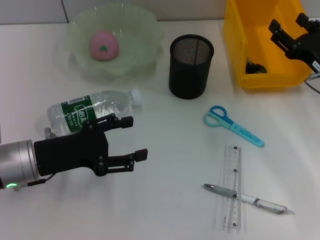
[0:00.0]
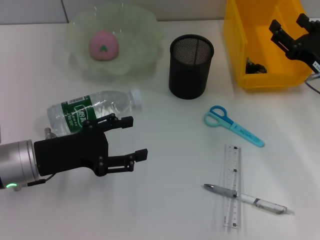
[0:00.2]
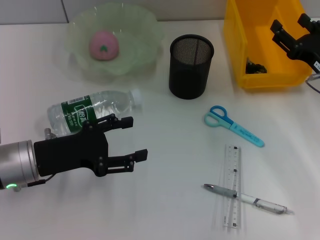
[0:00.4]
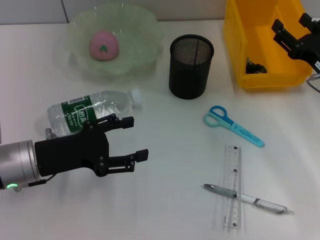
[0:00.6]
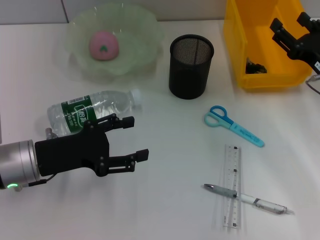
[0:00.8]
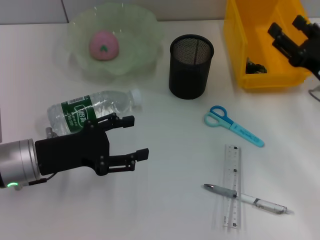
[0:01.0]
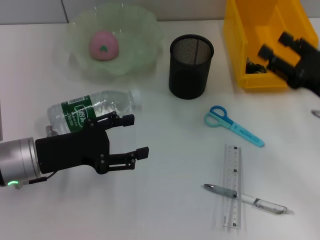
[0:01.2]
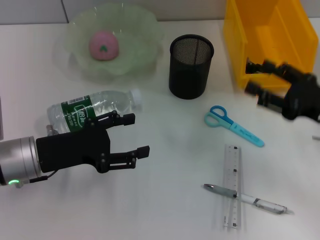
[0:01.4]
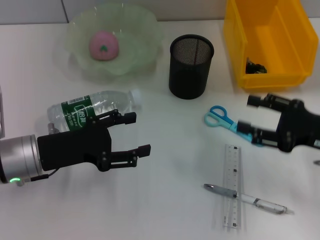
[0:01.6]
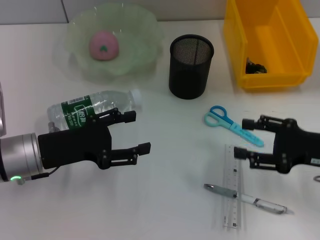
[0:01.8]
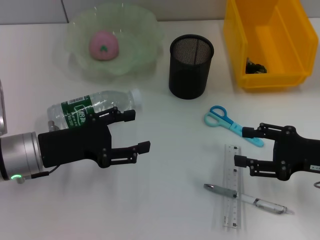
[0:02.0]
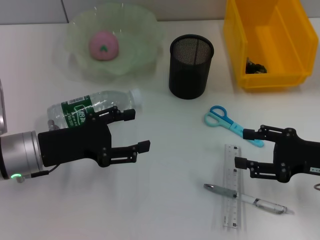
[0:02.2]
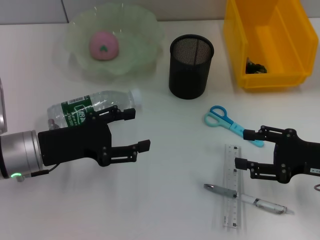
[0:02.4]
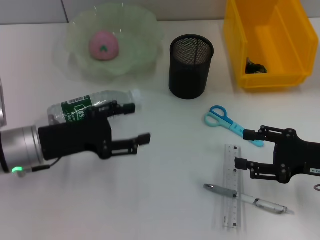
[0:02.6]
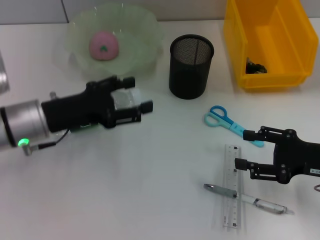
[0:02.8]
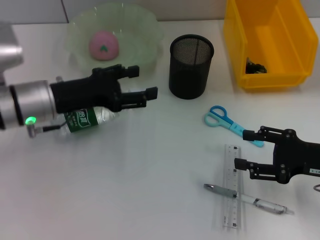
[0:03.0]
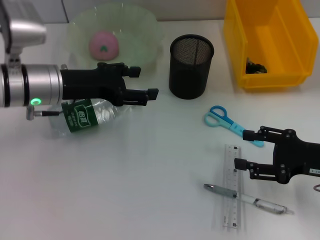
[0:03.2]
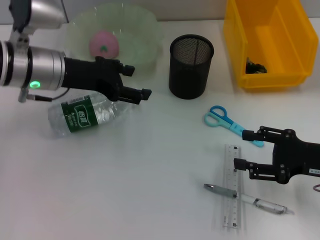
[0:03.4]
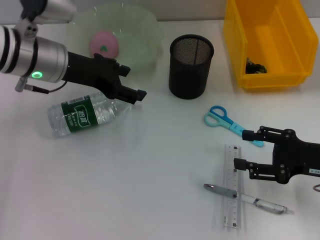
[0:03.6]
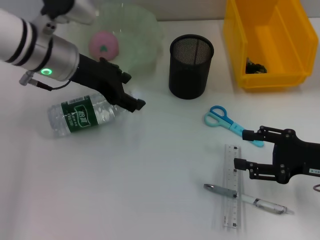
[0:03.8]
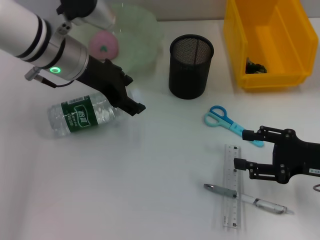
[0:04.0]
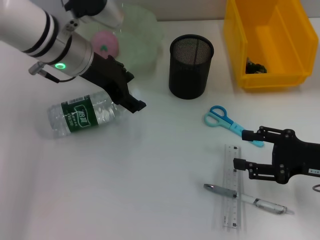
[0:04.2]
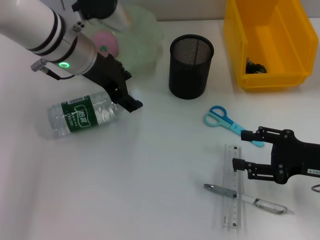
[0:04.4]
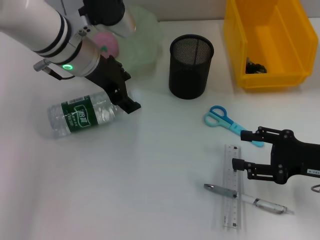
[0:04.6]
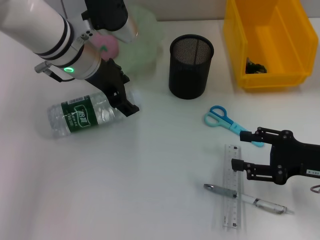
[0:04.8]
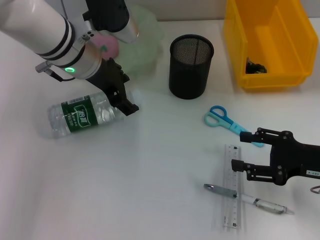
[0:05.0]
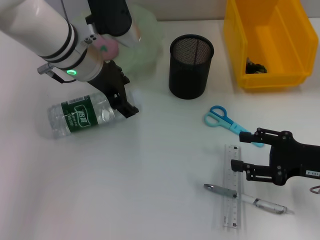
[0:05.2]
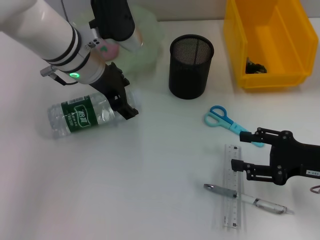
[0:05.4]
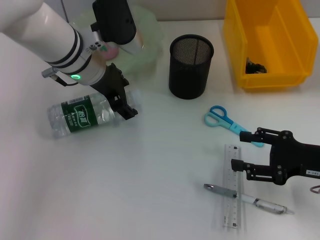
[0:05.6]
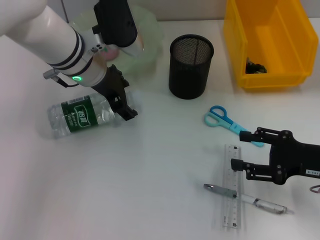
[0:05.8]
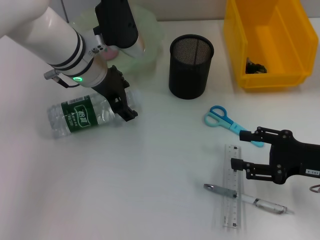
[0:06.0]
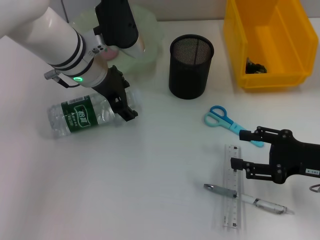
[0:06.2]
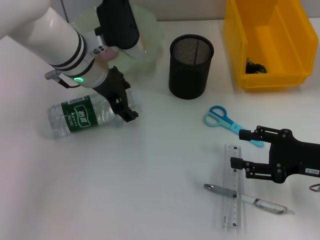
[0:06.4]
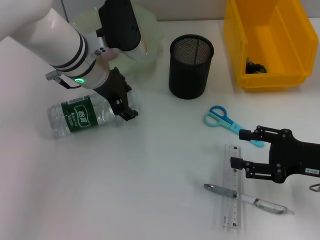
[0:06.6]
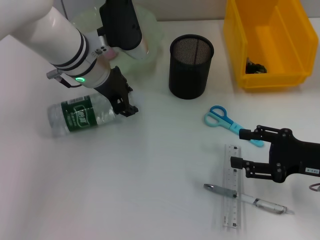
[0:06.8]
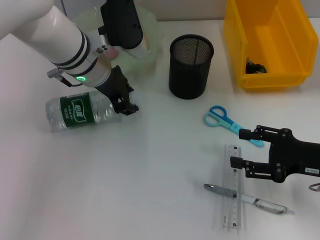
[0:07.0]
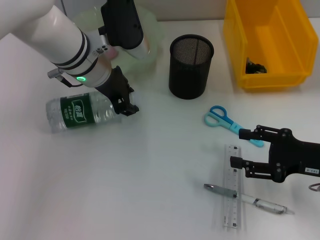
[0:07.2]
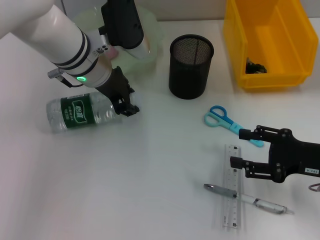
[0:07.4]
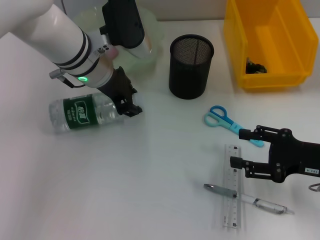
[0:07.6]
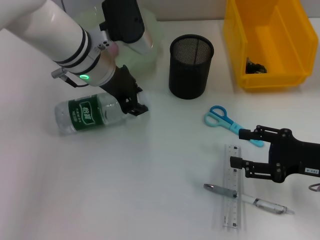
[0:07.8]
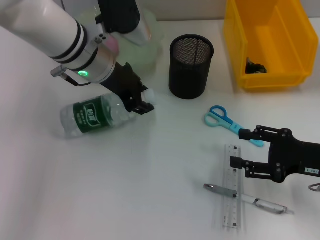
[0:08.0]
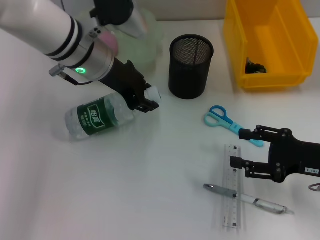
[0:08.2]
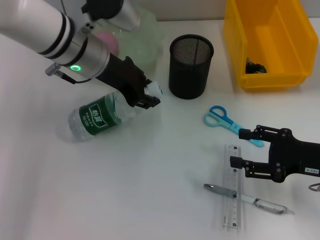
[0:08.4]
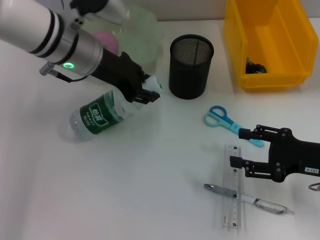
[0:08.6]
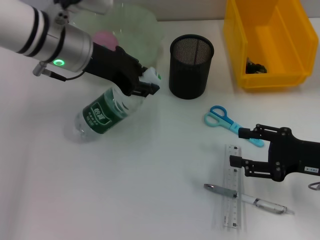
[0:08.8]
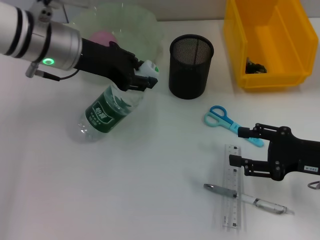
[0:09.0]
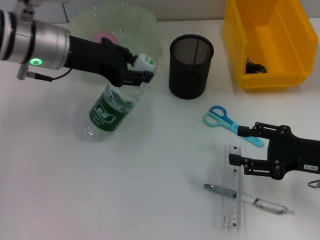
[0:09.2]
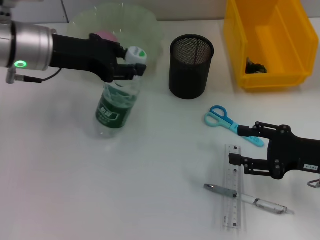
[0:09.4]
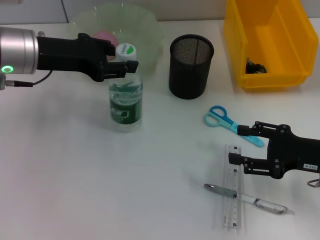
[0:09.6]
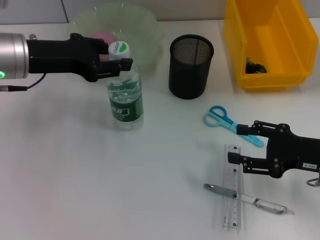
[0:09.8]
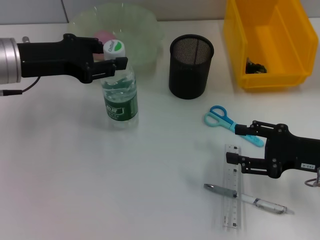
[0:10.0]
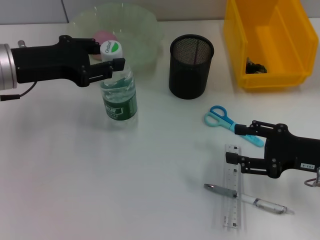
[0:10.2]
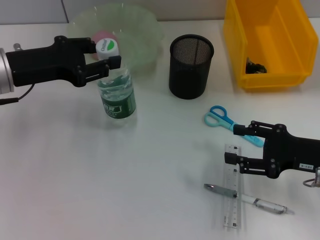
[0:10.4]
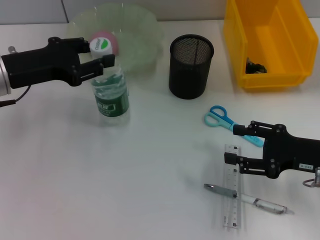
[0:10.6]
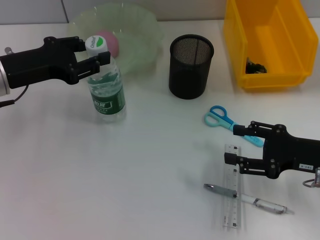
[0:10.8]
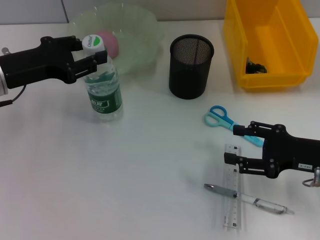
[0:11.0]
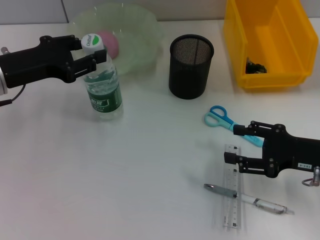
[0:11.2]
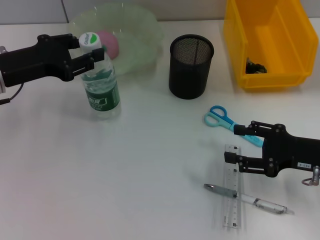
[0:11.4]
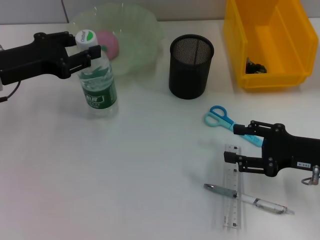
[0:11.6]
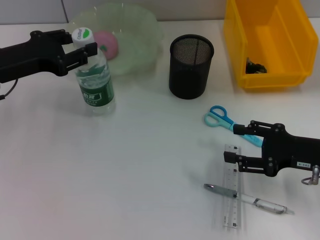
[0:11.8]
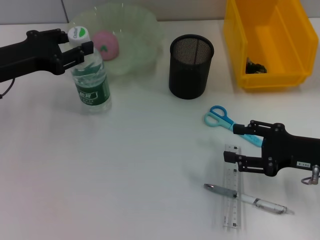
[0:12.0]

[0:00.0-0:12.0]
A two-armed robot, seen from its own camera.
Step, 0:00.0 to 0:07.0: Grab the water bottle with the left hand.
0:00.0 to 0:01.6: The right gripper travels backward by roughly 5 cm.
0:03.0 to 0:04.4: The left gripper goes about 15 cm forward, to the right and upward.
0:04.4 to 0:06.0: There are only small adjustments of the grippers.
0:06.0 to 0:07.6: The left gripper closes.
0:07.6 to 0:09.0: The left gripper travels to the left by some 5 cm.
0:09.0 to 0:10.4: The left gripper is displaced to the left by approximately 10 cm.
0:10.4 to 0:12.0: The grippers make only small movements.

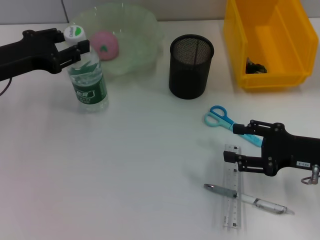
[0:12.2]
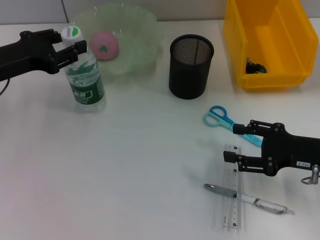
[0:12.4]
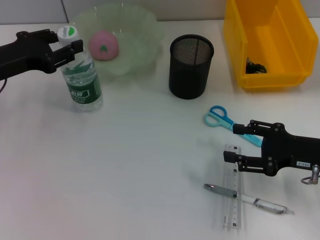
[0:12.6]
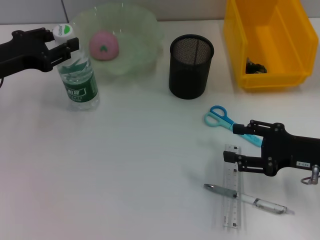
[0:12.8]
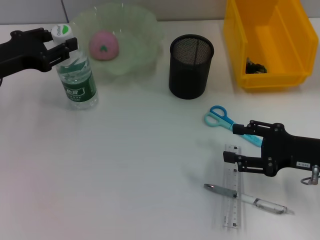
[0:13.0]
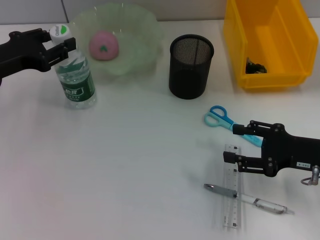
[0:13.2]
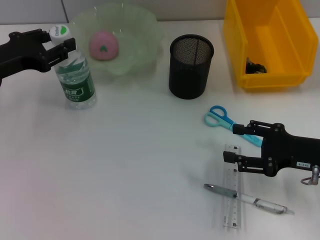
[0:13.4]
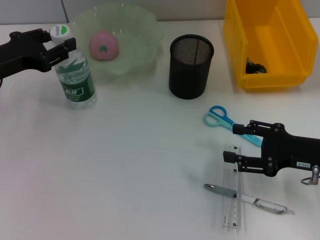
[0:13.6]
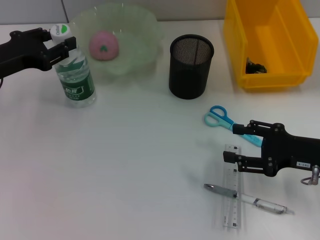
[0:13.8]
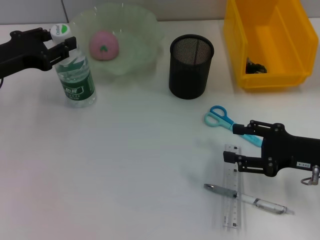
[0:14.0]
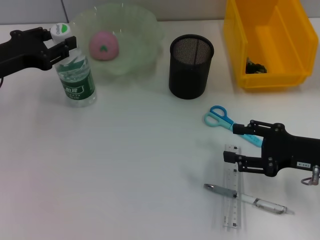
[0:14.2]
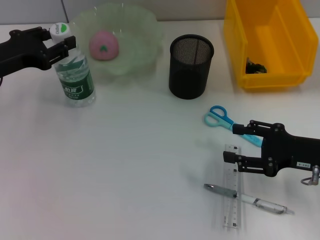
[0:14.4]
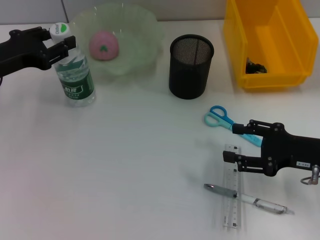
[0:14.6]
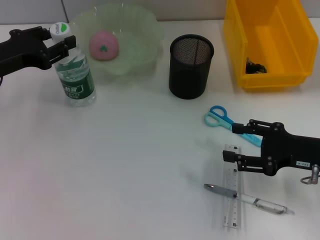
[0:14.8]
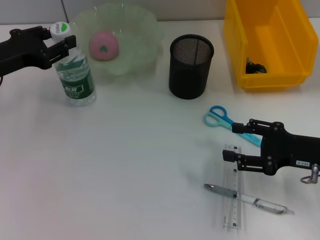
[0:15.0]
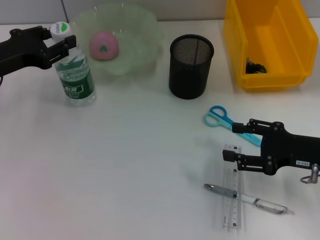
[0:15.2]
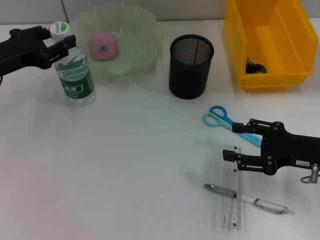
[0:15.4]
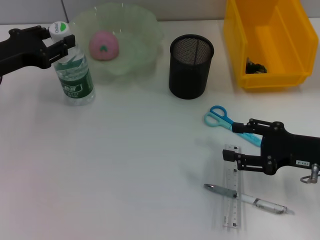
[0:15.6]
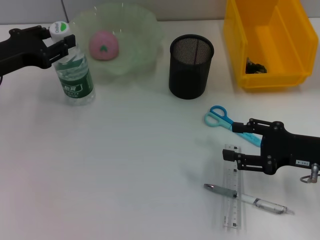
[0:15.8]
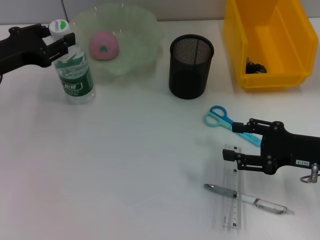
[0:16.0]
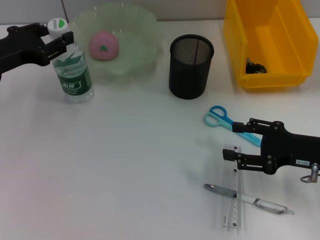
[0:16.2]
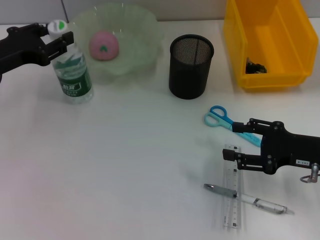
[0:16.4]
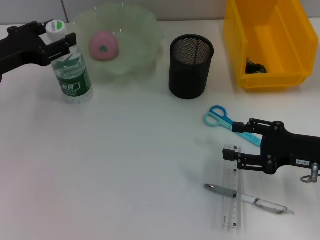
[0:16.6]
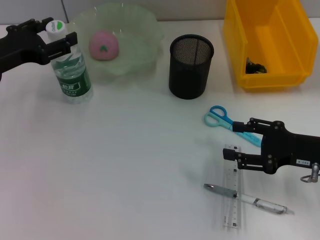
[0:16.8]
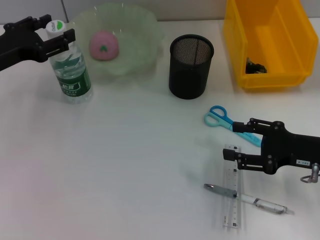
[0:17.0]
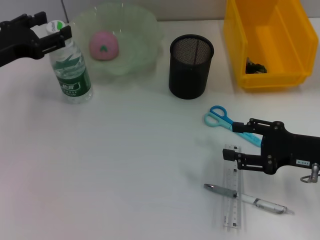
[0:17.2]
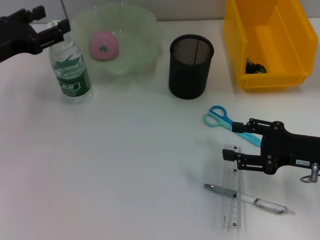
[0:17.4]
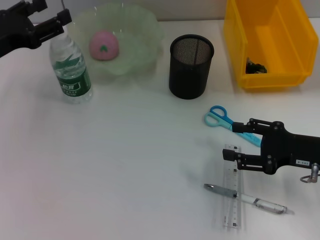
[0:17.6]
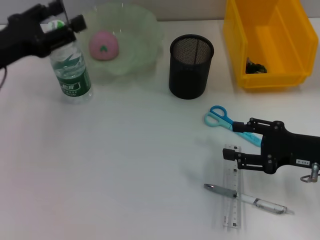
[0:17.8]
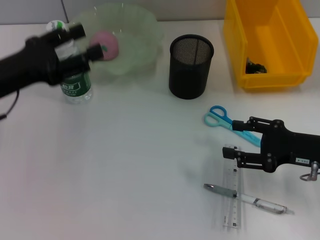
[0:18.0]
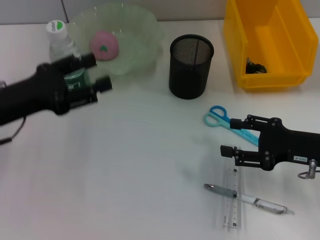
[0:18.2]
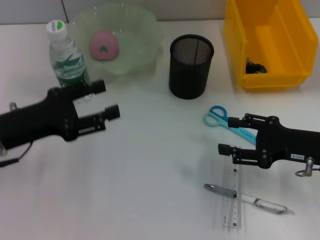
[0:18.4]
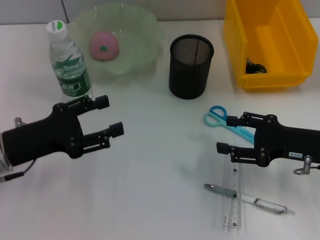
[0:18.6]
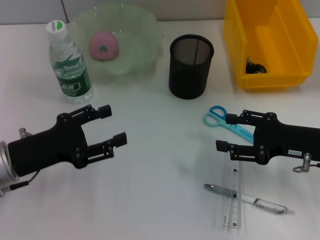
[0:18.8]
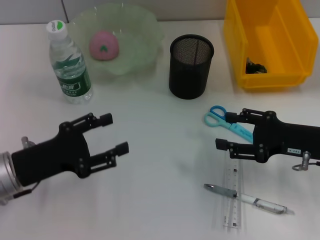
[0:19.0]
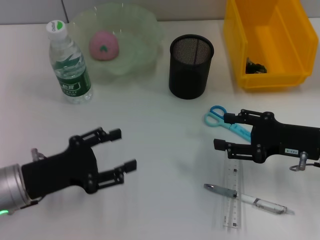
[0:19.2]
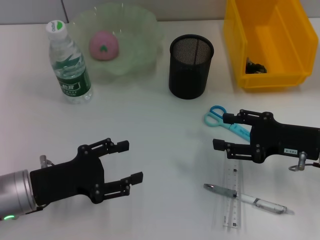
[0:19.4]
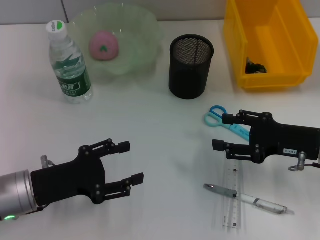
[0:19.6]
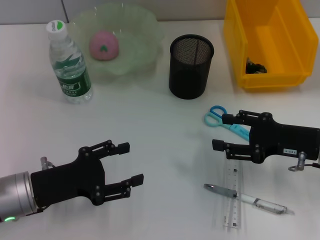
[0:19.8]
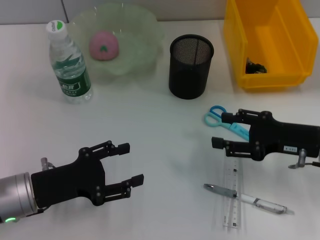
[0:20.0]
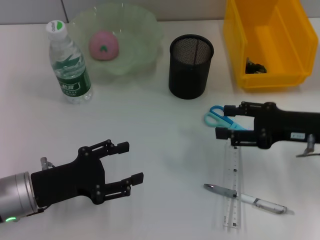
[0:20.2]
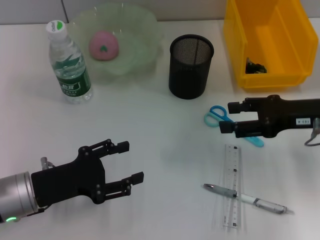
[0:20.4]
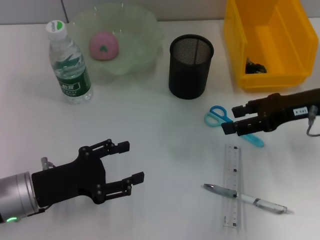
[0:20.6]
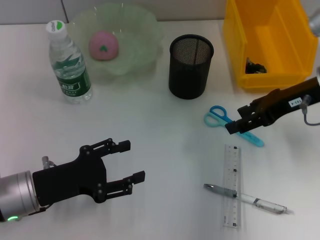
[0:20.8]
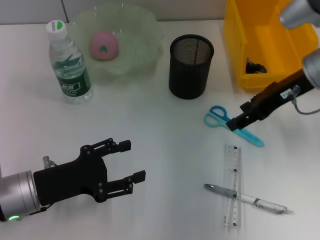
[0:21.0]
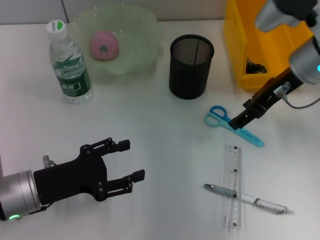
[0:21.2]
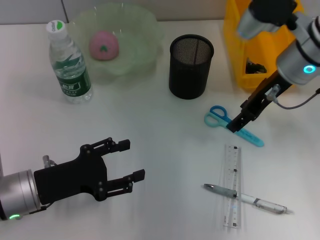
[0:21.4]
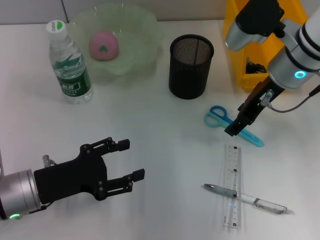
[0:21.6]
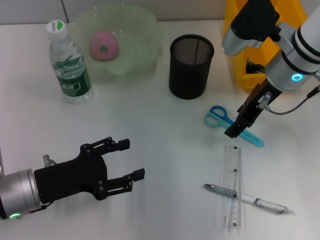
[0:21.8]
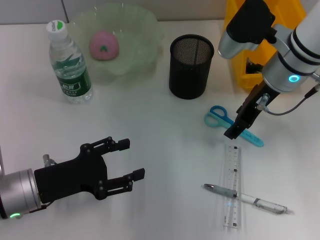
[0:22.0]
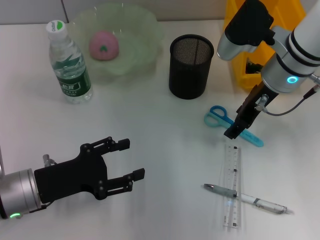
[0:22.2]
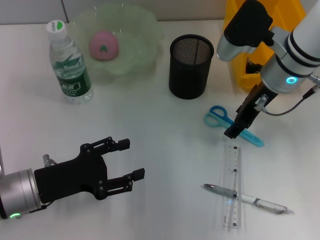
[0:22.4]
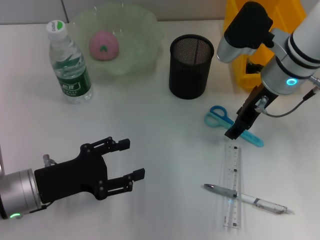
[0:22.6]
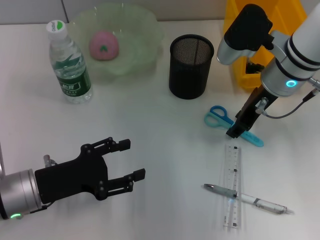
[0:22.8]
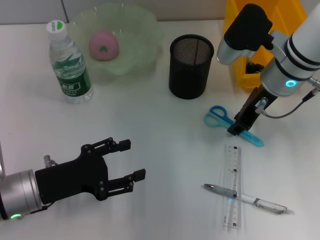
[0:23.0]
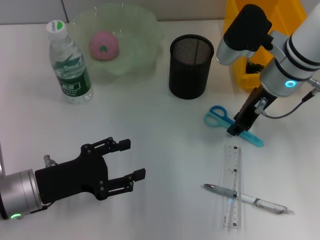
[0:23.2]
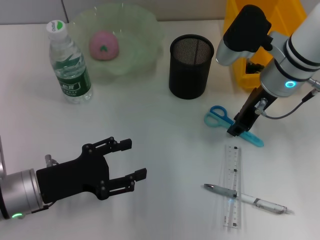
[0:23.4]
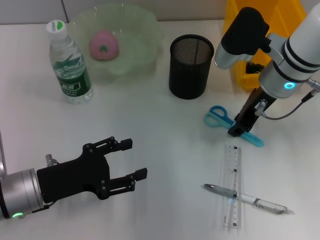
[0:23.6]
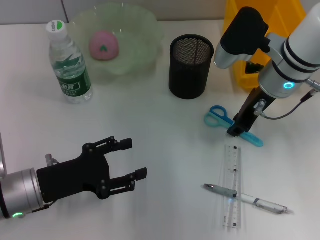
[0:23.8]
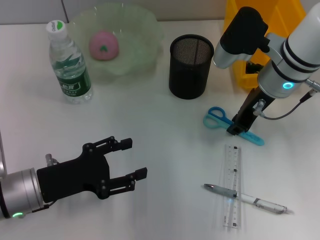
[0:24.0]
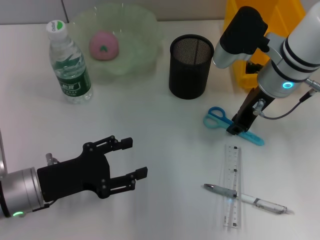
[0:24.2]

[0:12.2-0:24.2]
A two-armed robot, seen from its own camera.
Step, 0:12.2 to 0:17.0: Place the water bottle on the table with the left hand.
0:12.2 to 0:13.8: The grippers stay close to where they were, moving slightly.
0:13.8 to 0:16.6: The two grippers keep their place.
0:16.6 to 0:18.2: The left gripper travels backward by roughly 5 cm.
0:18.2 to 0:19.8: The left gripper shifts approximately 10 cm downward and backward.
0:19.8 to 0:21.2: The right gripper heads upward, forward and to the left, covering some 15 cm.
0:21.2 to 0:22.6: The grippers stay close to where they were, moving slightly.
0:22.6 to 0:24.2: The right gripper closes.
